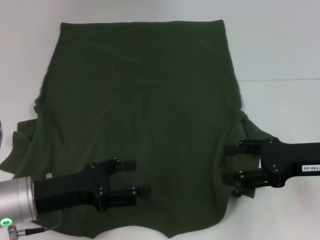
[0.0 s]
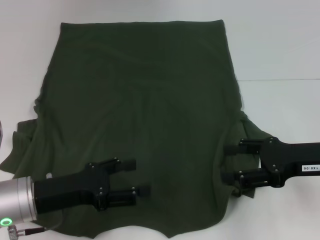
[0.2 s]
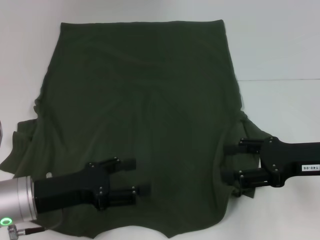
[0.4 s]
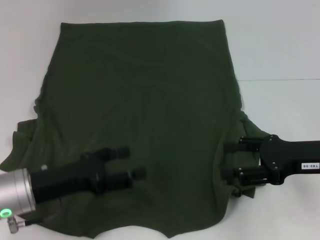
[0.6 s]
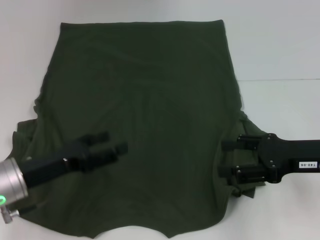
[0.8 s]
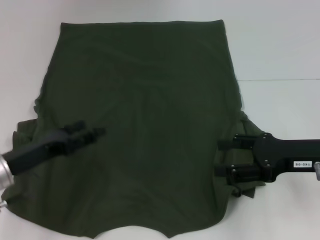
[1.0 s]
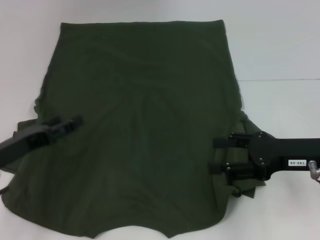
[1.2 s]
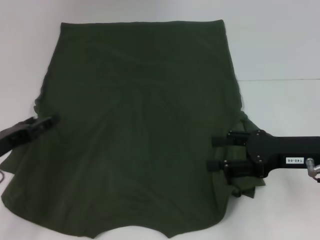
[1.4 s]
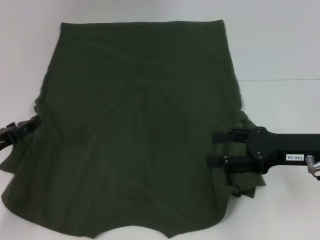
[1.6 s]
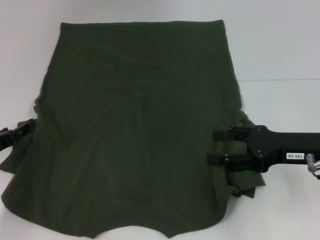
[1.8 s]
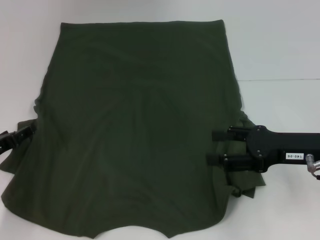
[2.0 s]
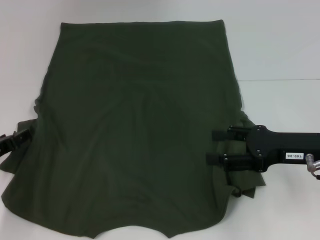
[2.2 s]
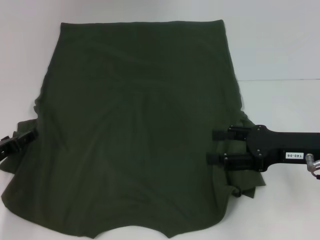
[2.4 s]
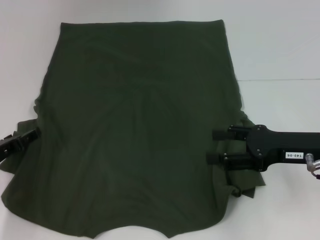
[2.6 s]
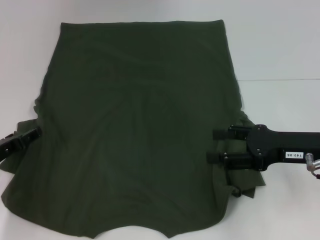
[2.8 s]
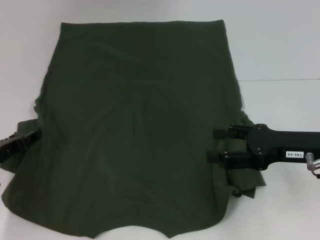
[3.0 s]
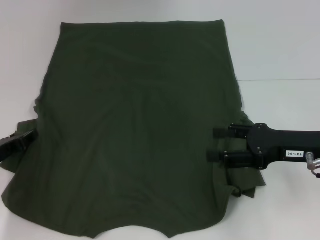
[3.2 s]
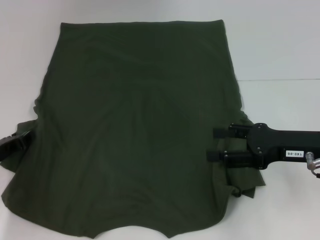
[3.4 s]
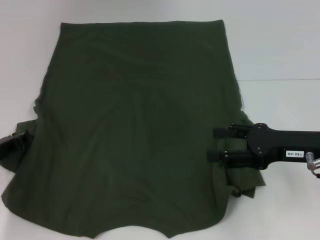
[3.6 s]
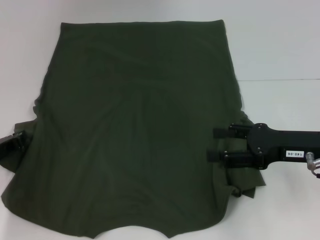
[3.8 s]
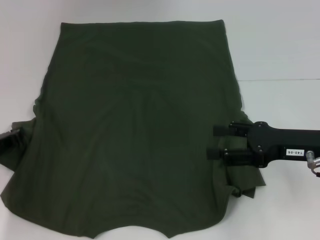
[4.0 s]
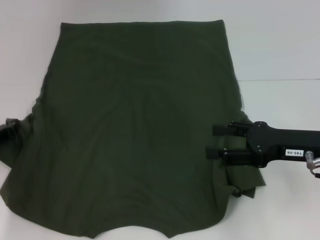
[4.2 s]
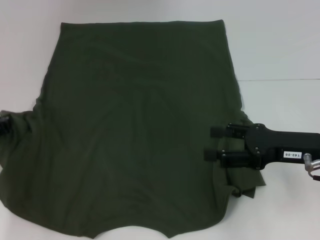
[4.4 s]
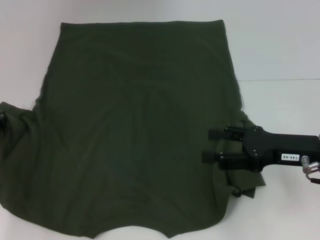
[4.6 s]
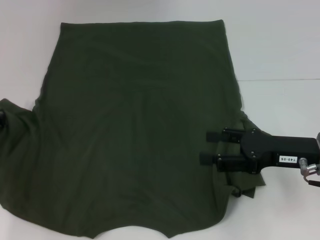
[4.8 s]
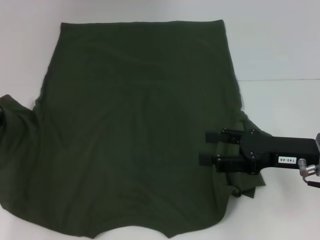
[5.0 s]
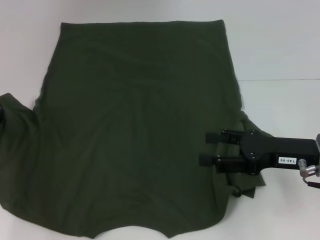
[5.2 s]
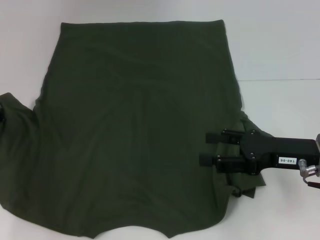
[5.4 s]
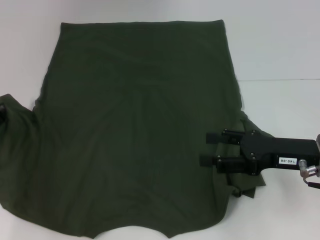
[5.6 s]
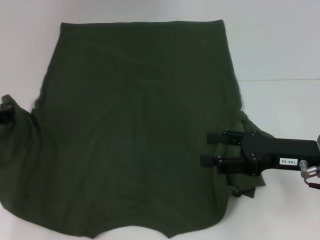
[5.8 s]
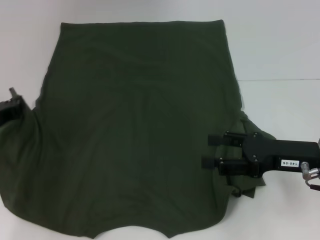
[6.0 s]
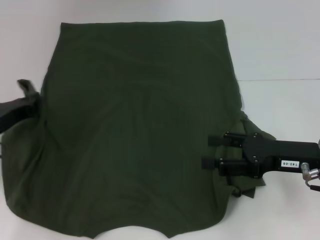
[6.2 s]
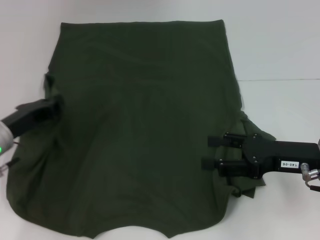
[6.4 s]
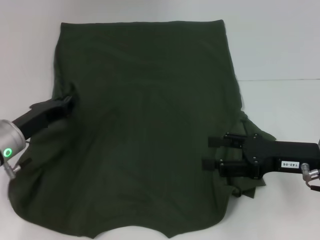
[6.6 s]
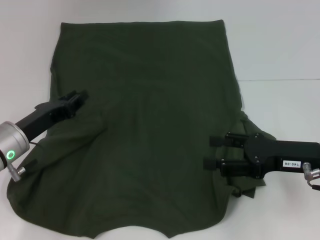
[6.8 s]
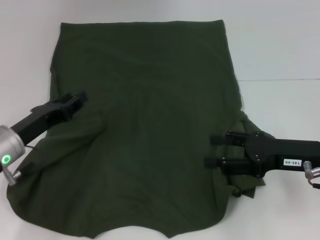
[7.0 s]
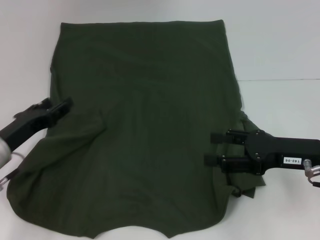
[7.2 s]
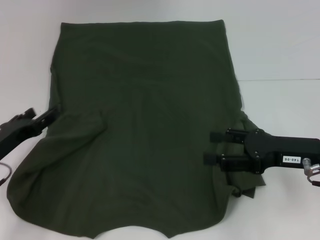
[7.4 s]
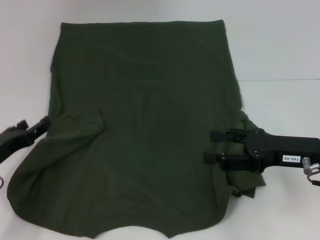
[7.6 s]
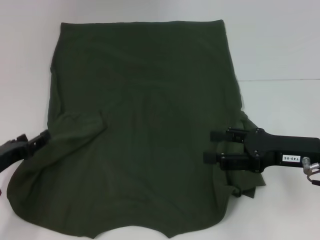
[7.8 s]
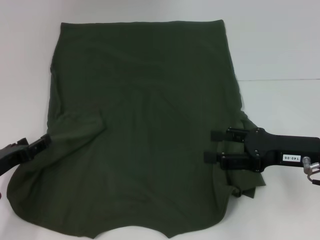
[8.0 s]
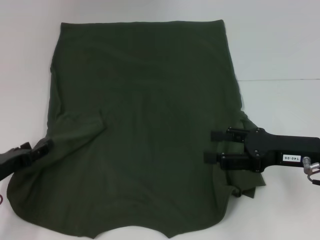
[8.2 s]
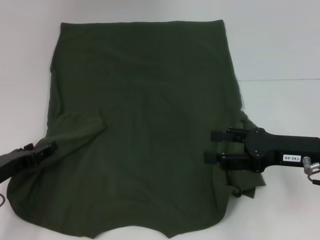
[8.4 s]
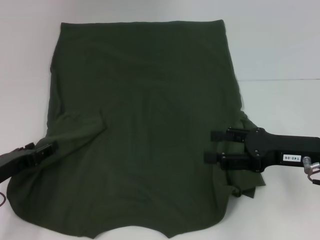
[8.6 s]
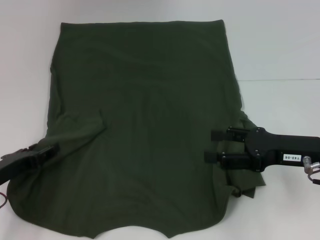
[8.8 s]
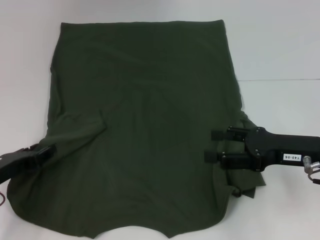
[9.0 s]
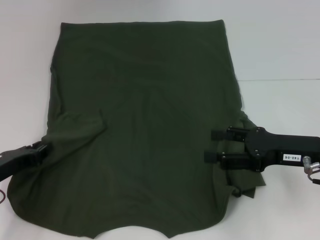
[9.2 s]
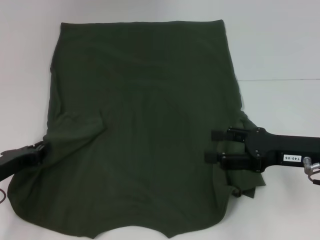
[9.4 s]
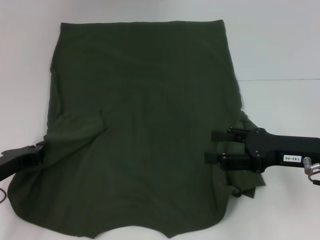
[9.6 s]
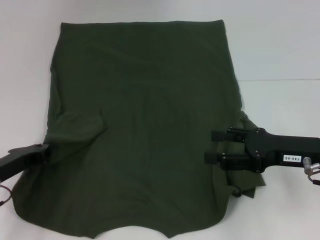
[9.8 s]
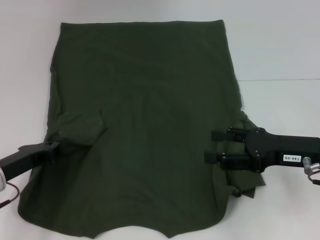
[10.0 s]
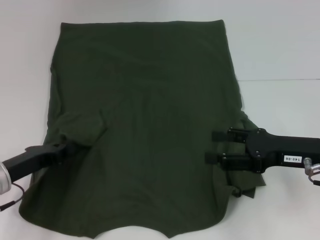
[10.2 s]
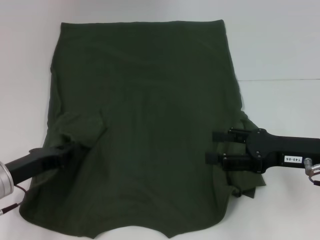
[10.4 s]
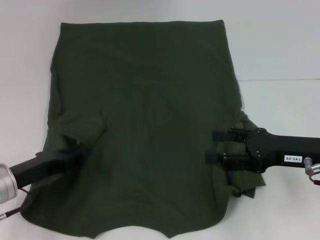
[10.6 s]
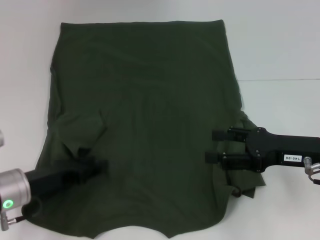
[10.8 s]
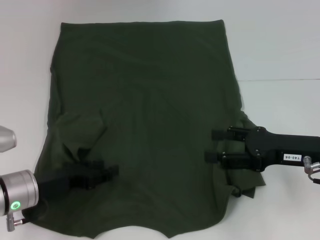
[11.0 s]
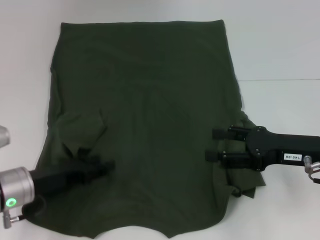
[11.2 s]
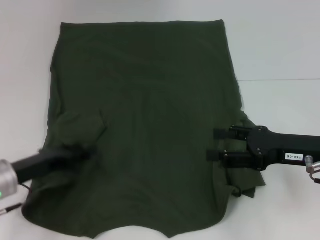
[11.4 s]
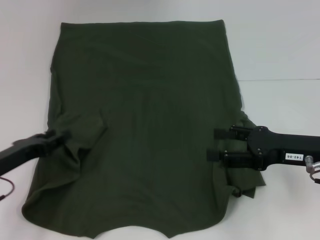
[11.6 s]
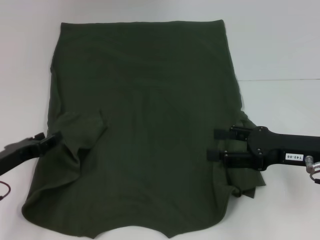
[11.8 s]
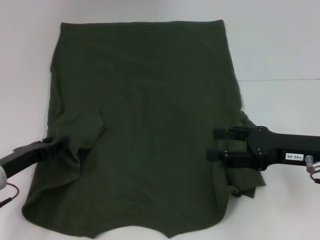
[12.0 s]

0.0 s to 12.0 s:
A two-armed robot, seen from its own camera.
0.0 to 1.6 s: The left gripper heads to the left, covering roughly 10 cm.
1.6 to 3.0 s: There are only small adjustments of the grippers.
3.0 to 4.4 s: The left gripper closes up.
4.4 to 6.0 s: The grippers make only small movements.
6.0 to 7.6 s: The left gripper moves backward, about 5 cm, and opens its fingers.
7.6 to 9.0 s: There are only small adjustments of the grippers.
9.0 to 10.4 s: The left gripper closes its fingers.
10.4 to 12.0 s: The left gripper opens.

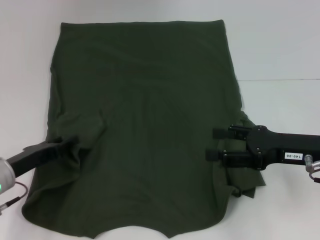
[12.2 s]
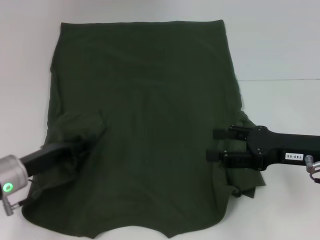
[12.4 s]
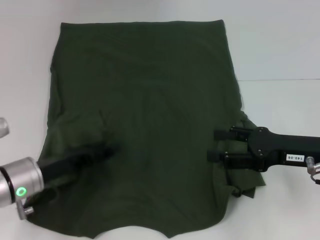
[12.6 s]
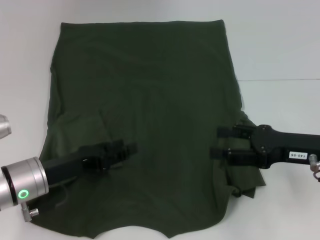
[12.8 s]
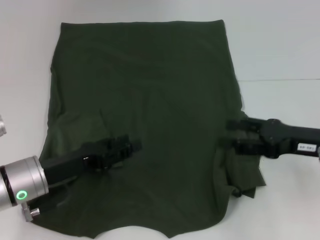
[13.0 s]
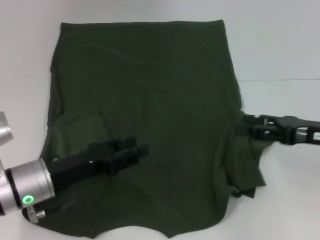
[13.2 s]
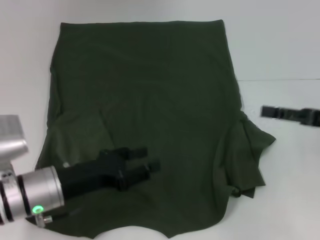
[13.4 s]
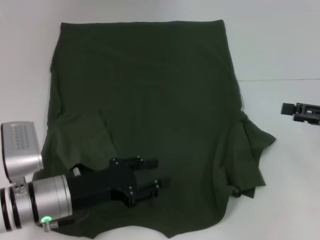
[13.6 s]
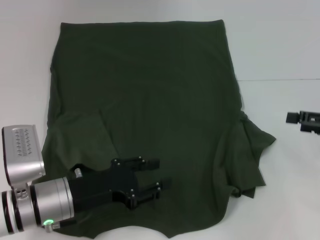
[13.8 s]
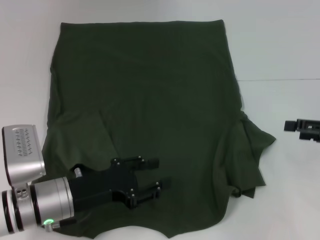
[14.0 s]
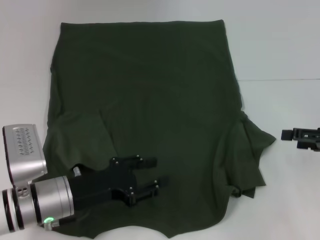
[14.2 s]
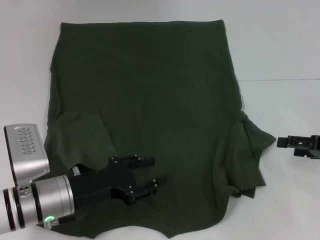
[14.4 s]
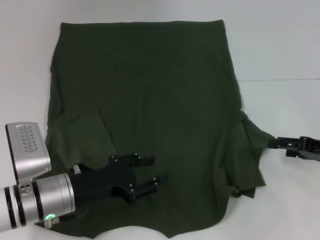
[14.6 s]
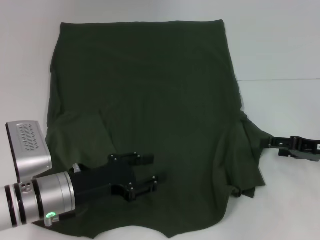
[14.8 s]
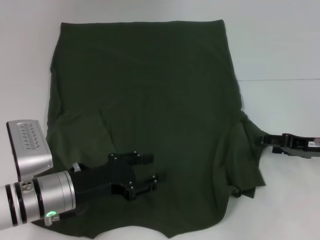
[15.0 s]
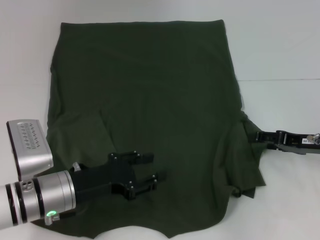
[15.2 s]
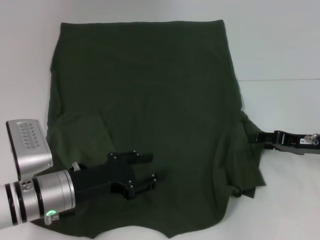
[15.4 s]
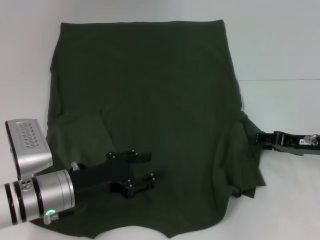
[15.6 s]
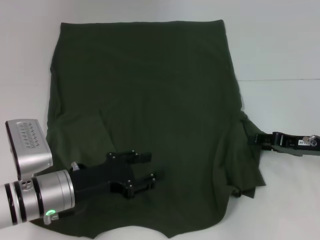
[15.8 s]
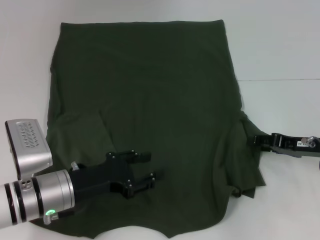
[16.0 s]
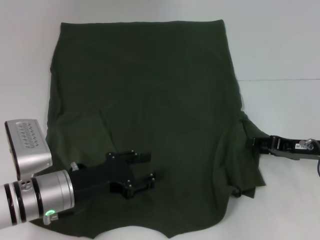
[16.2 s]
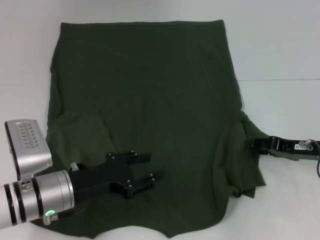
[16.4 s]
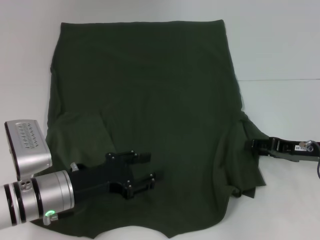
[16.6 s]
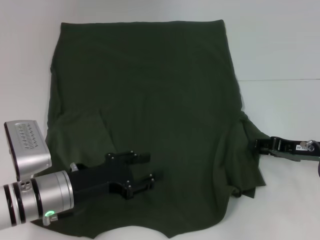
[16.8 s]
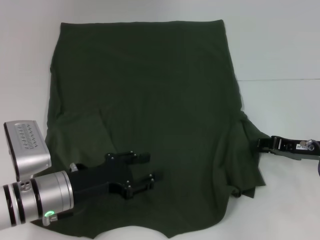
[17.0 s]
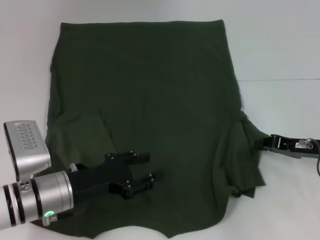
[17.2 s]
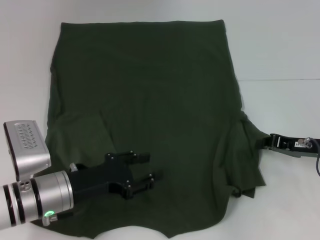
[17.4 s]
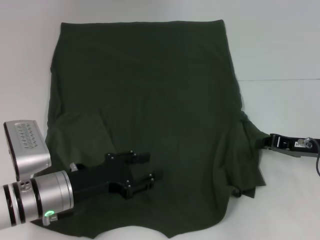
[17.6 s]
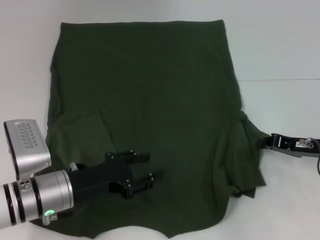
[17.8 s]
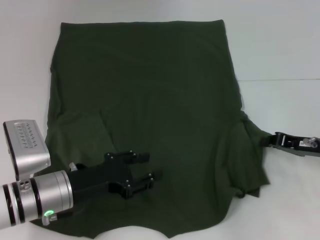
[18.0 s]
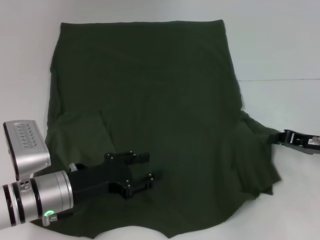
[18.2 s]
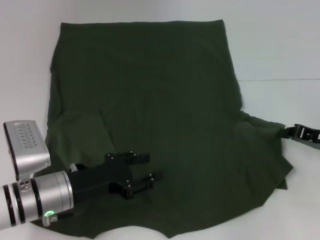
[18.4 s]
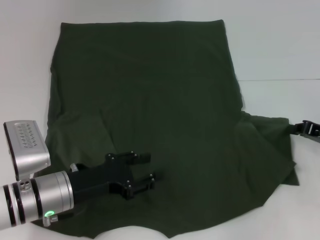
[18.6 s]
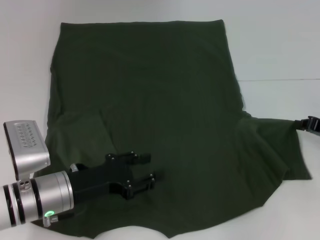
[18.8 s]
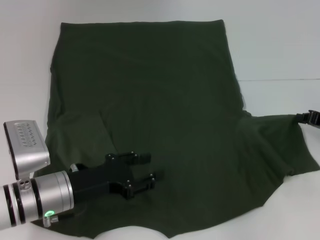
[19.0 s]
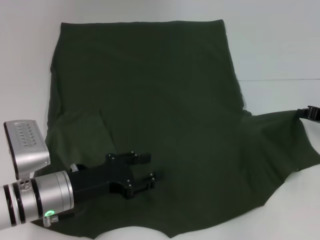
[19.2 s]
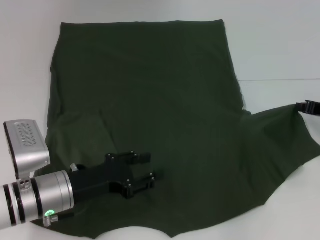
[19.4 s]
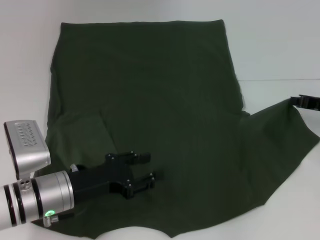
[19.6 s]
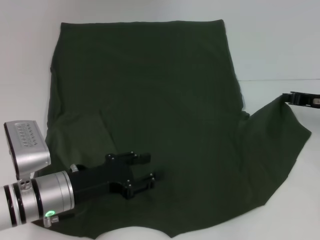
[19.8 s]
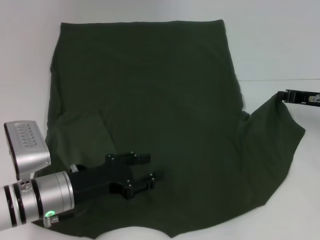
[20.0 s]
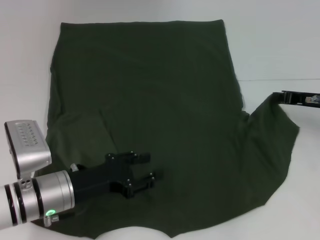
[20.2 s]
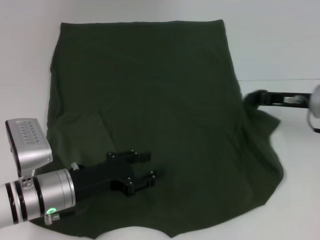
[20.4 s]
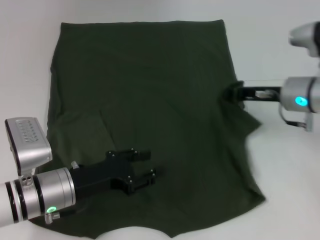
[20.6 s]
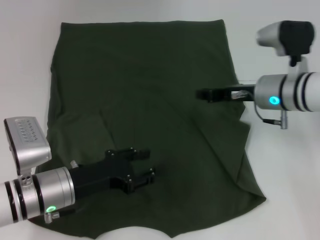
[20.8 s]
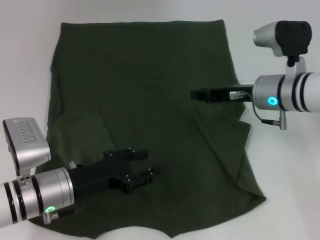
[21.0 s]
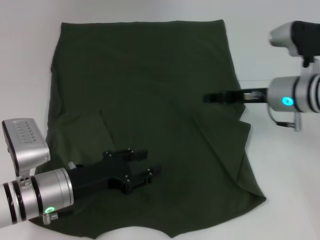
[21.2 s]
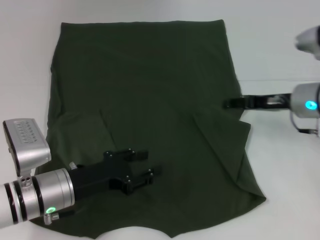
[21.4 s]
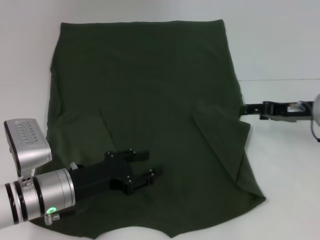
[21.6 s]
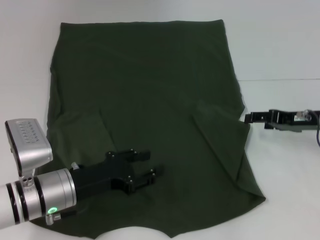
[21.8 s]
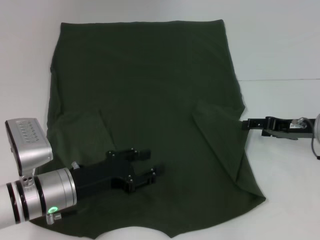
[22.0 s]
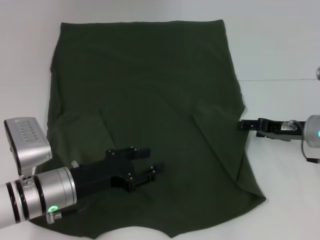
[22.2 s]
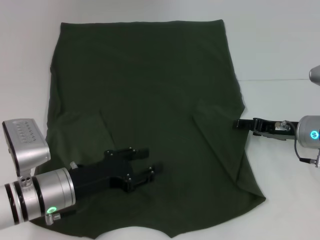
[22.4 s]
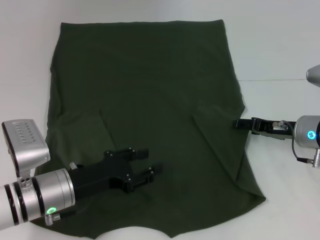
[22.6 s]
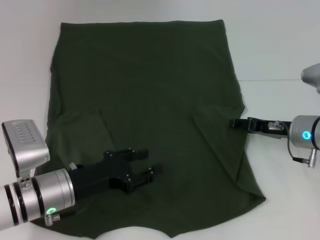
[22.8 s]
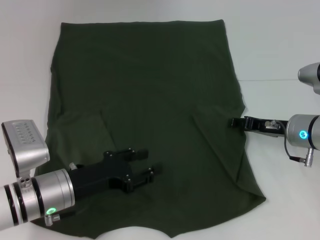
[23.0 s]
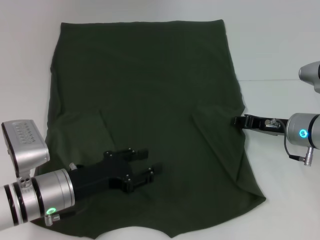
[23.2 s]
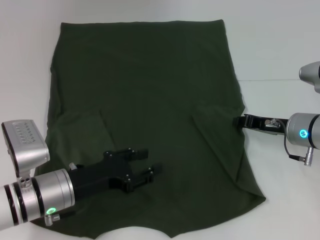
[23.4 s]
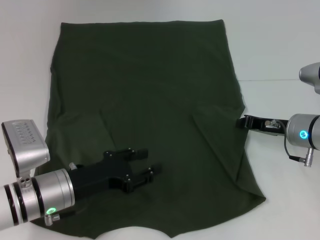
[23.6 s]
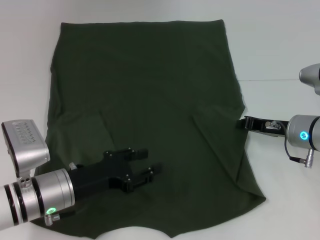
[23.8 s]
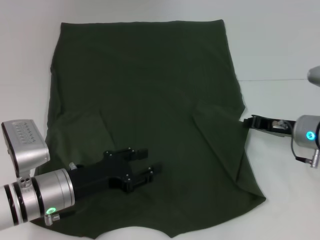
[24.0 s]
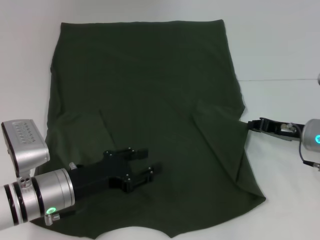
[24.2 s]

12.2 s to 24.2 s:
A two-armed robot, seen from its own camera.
12.2 to 13.8 s: Both grippers move to the right, approximately 10 cm.
13.8 to 15.2 s: The right gripper goes roughly 10 cm to the left and downward.
15.2 to 16.6 s: The grippers make only small movements.
16.6 to 18.2 s: The right gripper closes.
18.2 to 19.8 s: The right gripper heads forward, covering some 5 cm.
19.8 to 21.2 s: The right gripper shifts about 10 cm to the left, and opens its fingers.
21.2 to 22.6 s: The right gripper shifts some 5 cm downward, and opens.
22.6 to 24.2 s: The right gripper closes its fingers.
